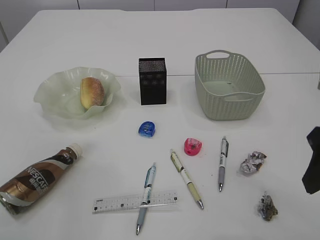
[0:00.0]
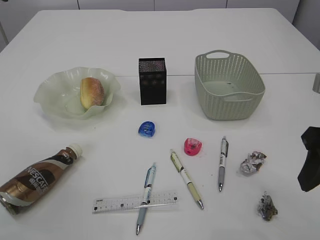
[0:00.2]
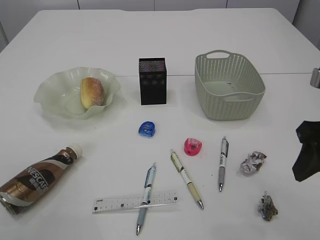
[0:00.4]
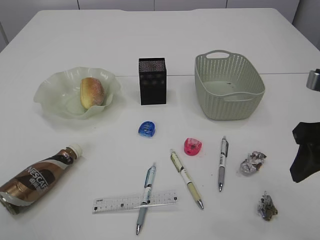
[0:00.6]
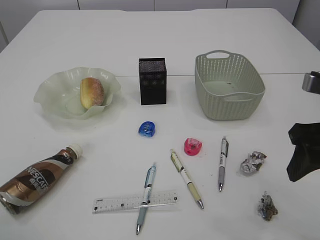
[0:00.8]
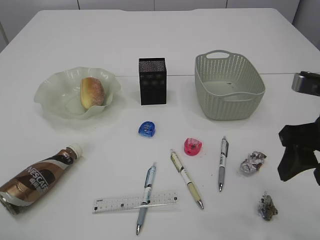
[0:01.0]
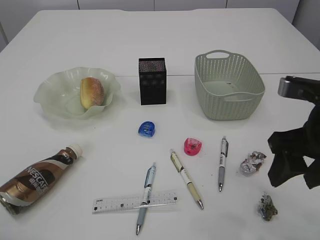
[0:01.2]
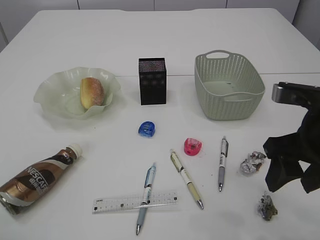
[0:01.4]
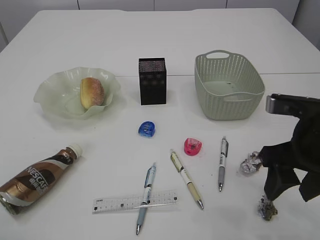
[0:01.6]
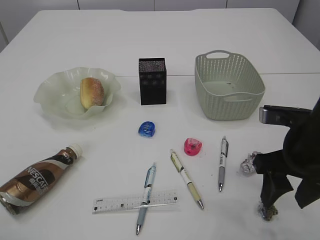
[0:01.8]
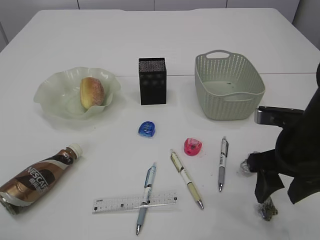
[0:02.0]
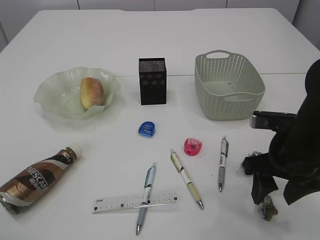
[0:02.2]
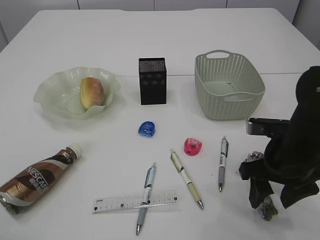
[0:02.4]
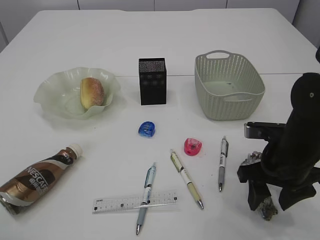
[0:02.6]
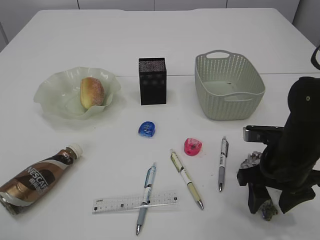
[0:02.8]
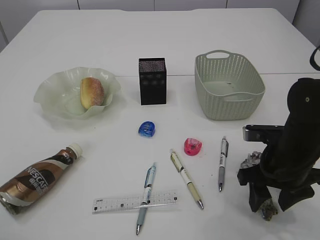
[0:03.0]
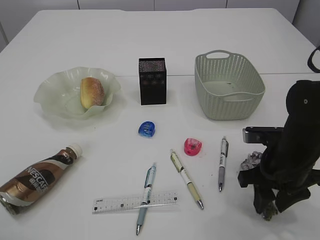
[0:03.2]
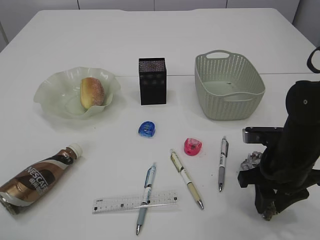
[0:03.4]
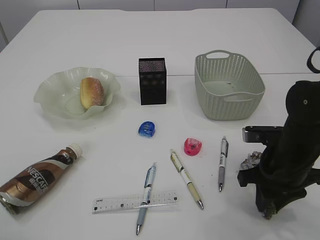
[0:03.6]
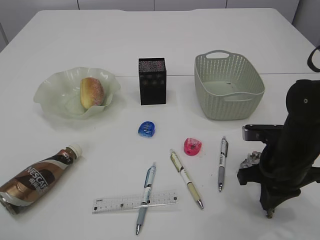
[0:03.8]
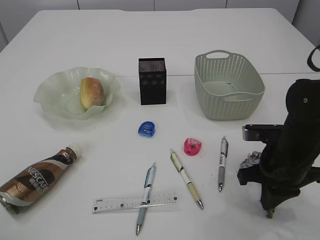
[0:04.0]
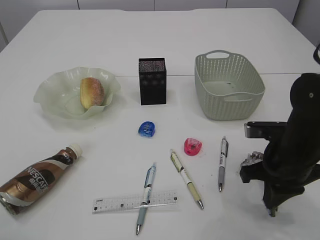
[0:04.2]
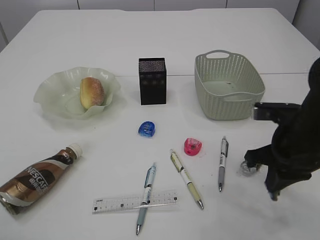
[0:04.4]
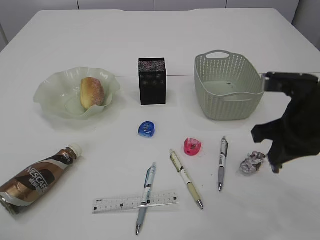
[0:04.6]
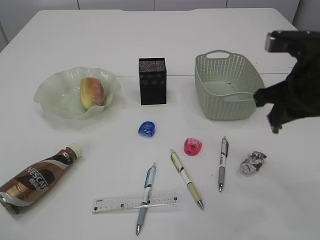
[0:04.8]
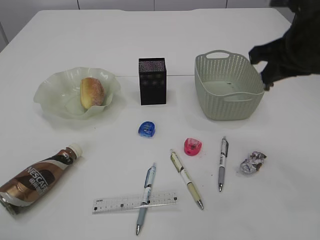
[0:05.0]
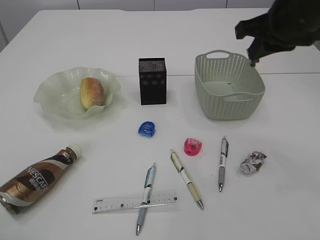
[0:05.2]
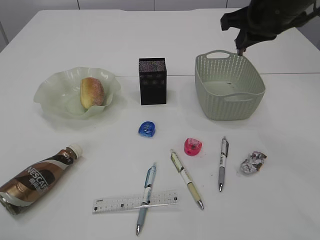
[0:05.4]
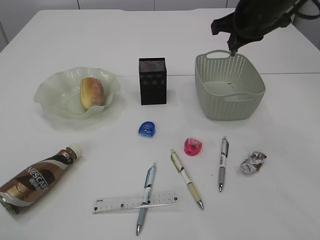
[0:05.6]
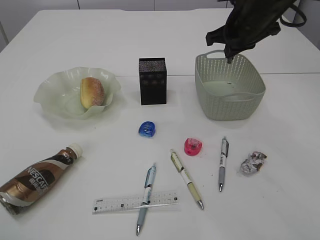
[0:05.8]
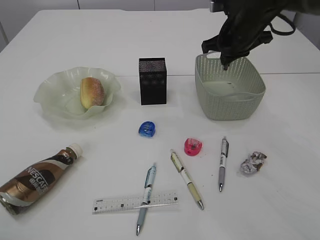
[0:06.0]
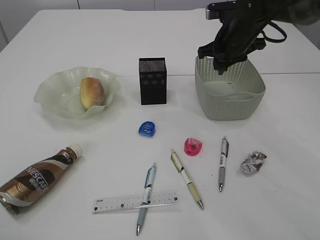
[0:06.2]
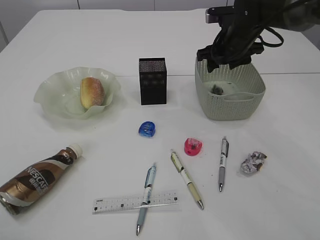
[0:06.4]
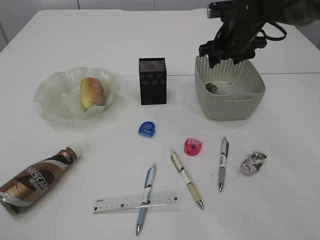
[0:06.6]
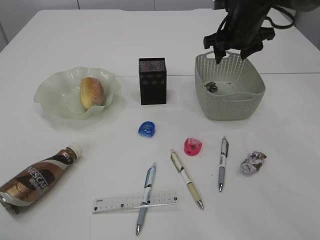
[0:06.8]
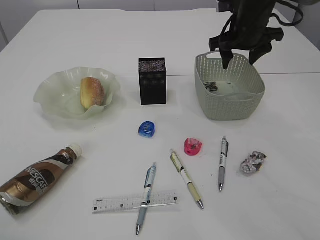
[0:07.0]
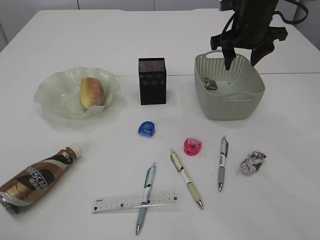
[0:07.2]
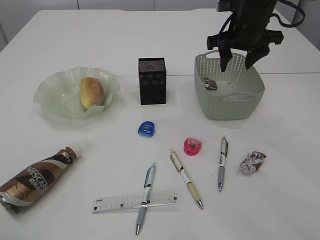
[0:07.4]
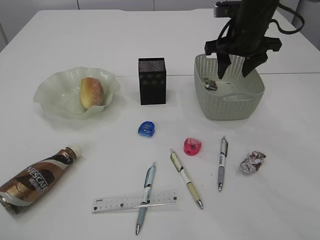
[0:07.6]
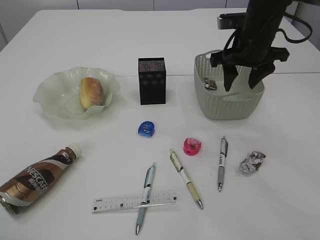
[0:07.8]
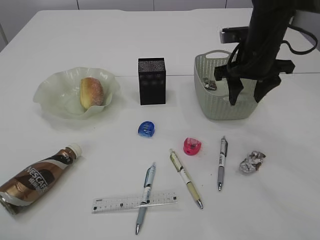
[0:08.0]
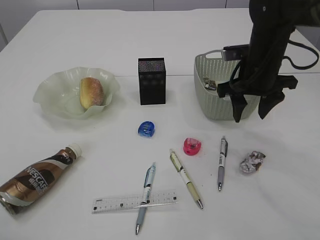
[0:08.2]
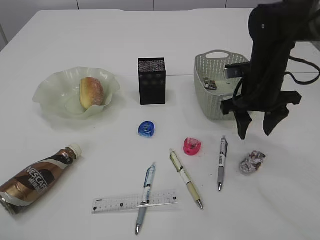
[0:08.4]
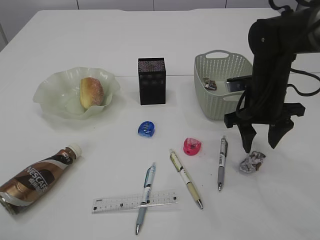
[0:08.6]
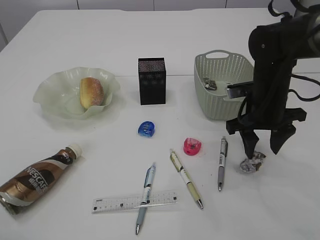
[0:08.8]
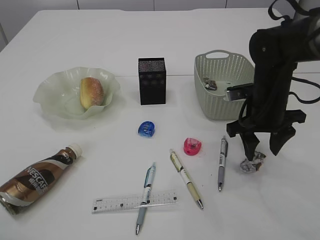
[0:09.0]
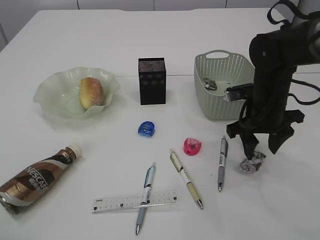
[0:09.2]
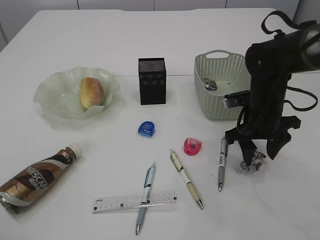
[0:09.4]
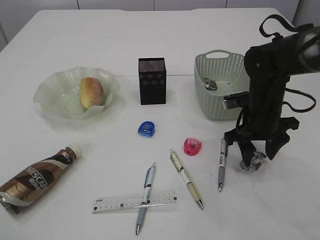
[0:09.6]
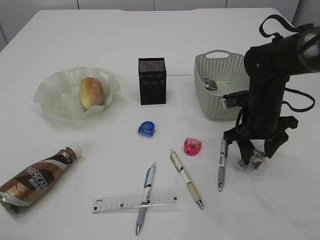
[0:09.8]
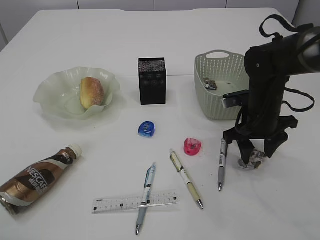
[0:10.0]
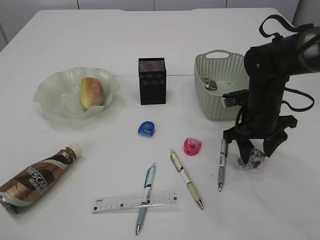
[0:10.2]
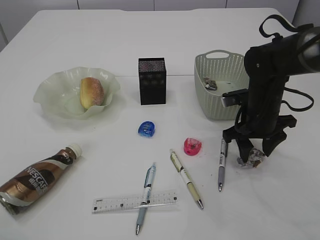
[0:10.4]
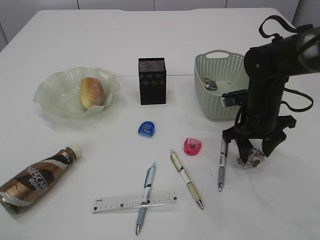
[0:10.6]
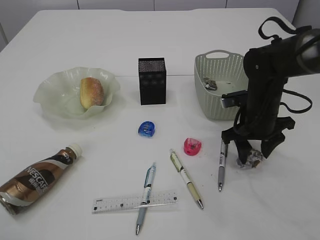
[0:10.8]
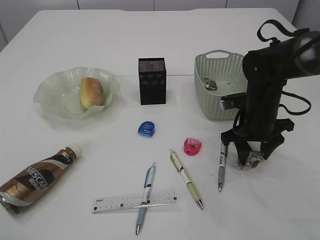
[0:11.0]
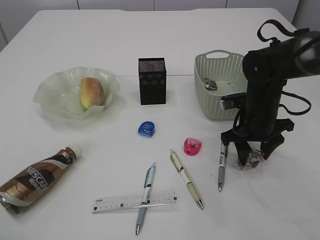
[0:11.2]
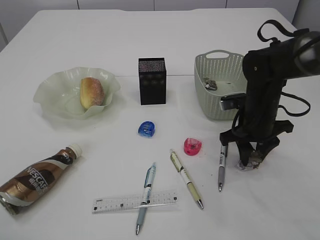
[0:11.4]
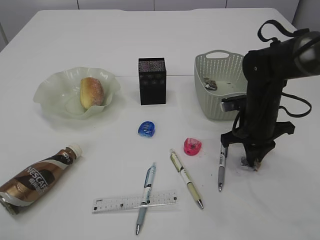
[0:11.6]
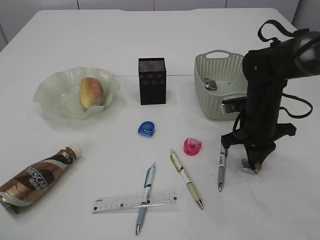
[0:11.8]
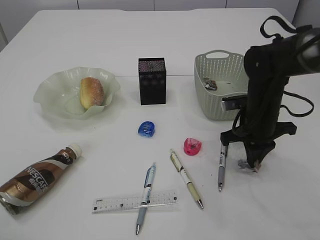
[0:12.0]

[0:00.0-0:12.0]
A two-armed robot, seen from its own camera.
Step, 0:00.0 to 0:04.2: Pick up the waste paper.
Step, 0:04.4 to 0:07.4: Place the waste paper in the basket.
0:00.0 to 0:01.6: The right gripper travels downward by roughly 5 cm.
0:01.6 to 0:03.0: The right gripper shifts roughly 10 cm downward.
0:03.0 to 0:04.4: The right gripper closes its fingers.
0:04.4 to 0:06.0: The right gripper shifts about 20 cm forward and upward.
0:06.0 to 0:07.6: The right gripper opens its fingers.
0:07.6 to 0:09.0: The right gripper shifts roughly 15 cm downward and backward.
0:09.0 to 0:10.4: There are only small adjustments of the grippers.
0:10.4 to 0:12.0: The right gripper closes.

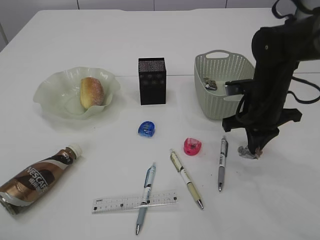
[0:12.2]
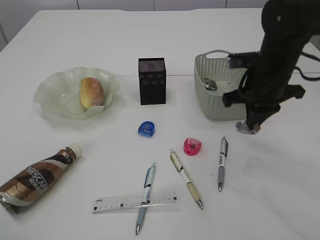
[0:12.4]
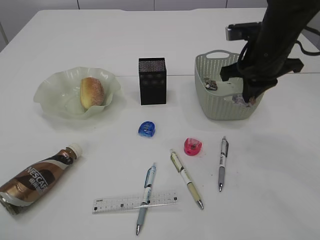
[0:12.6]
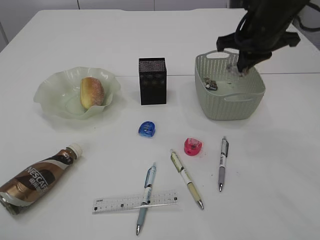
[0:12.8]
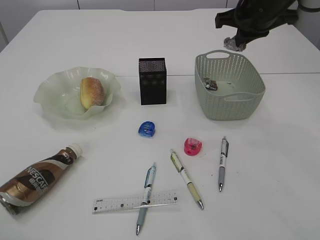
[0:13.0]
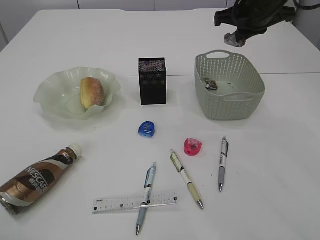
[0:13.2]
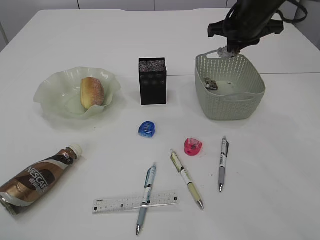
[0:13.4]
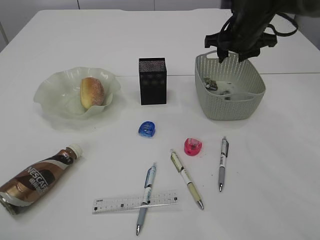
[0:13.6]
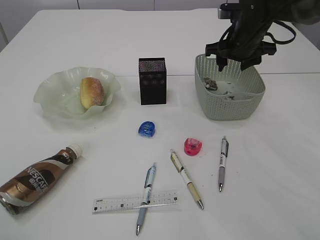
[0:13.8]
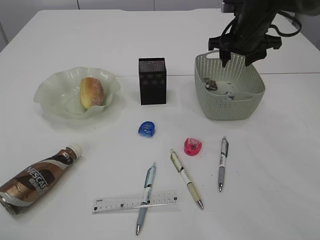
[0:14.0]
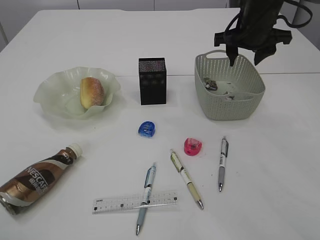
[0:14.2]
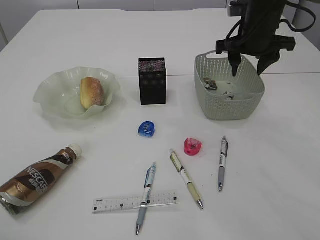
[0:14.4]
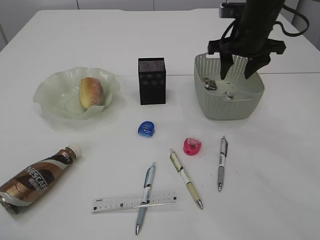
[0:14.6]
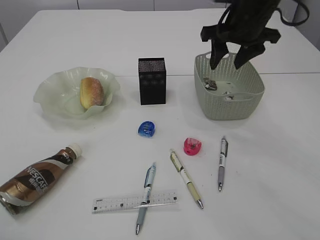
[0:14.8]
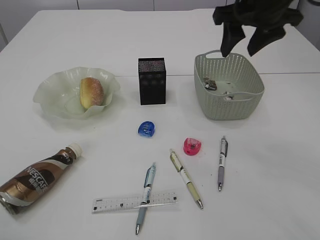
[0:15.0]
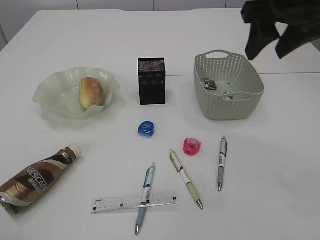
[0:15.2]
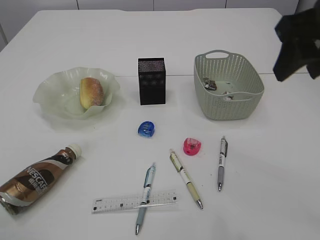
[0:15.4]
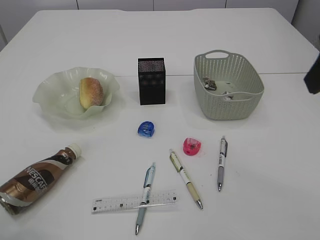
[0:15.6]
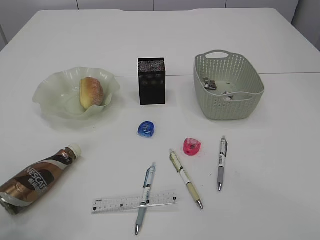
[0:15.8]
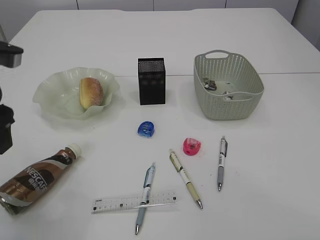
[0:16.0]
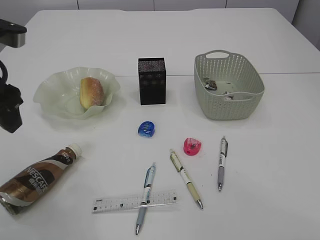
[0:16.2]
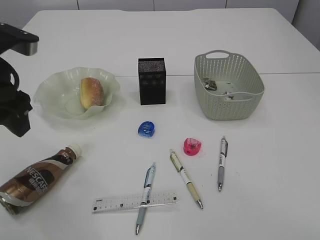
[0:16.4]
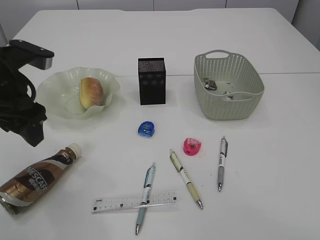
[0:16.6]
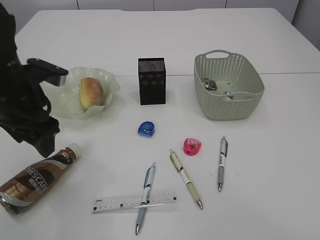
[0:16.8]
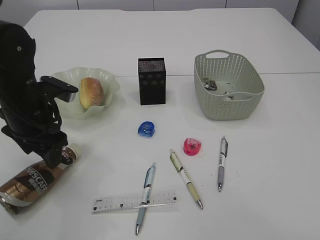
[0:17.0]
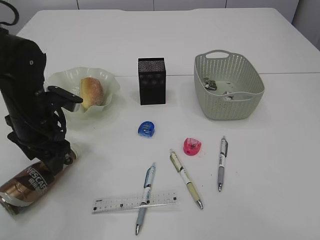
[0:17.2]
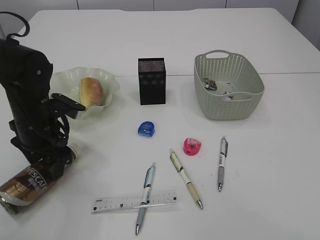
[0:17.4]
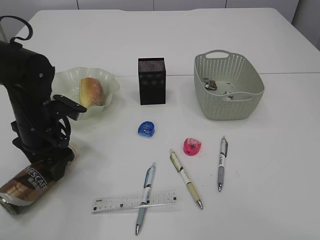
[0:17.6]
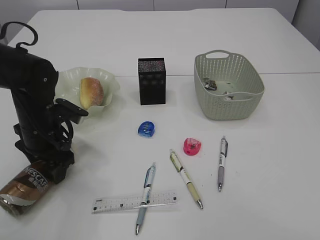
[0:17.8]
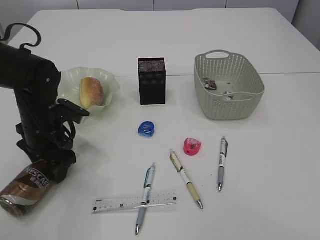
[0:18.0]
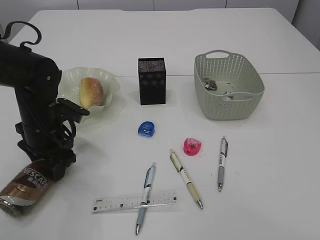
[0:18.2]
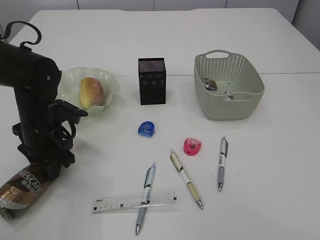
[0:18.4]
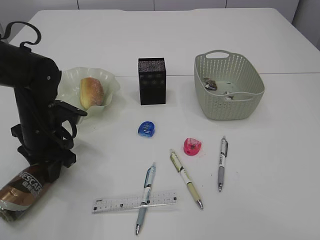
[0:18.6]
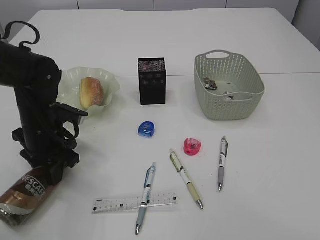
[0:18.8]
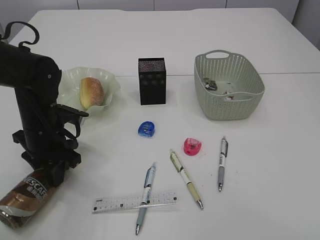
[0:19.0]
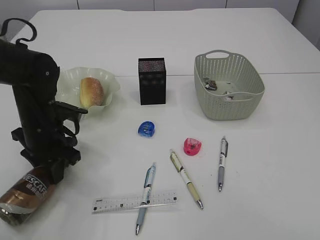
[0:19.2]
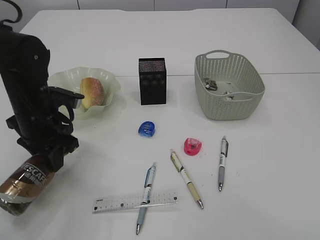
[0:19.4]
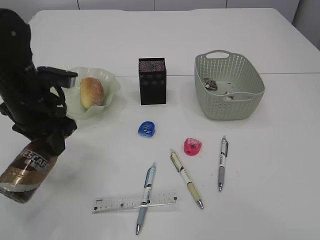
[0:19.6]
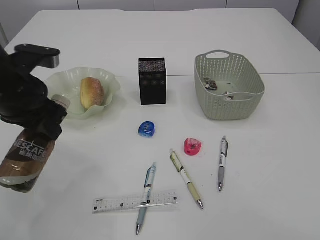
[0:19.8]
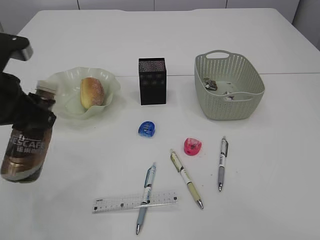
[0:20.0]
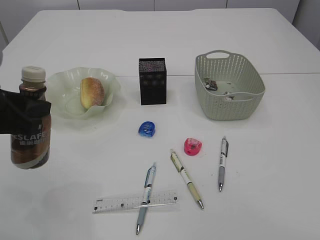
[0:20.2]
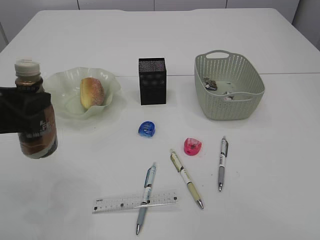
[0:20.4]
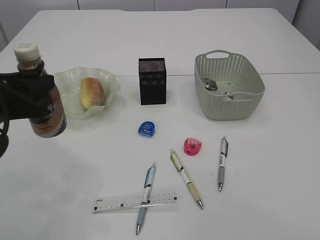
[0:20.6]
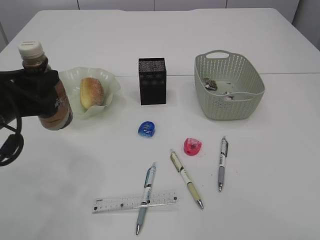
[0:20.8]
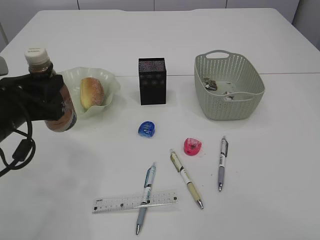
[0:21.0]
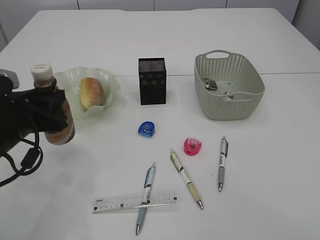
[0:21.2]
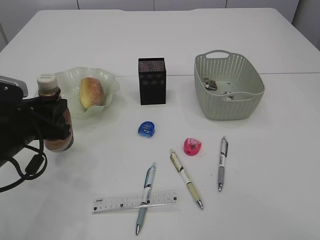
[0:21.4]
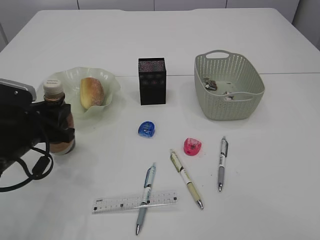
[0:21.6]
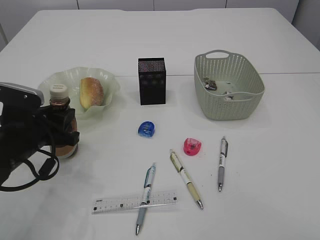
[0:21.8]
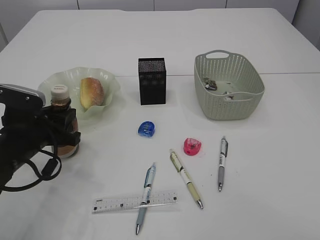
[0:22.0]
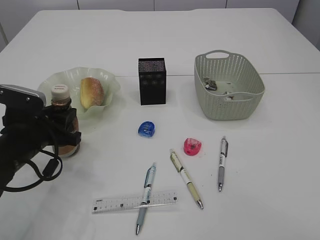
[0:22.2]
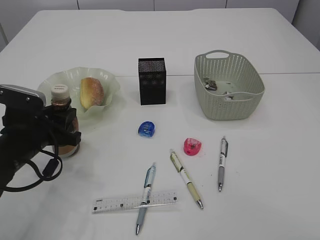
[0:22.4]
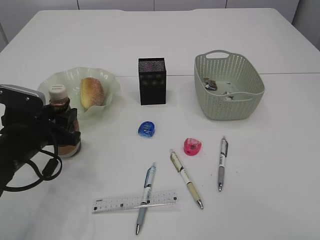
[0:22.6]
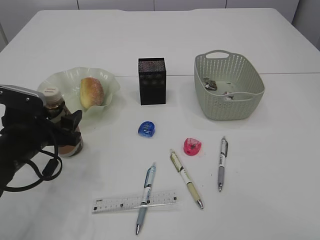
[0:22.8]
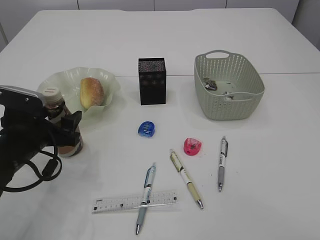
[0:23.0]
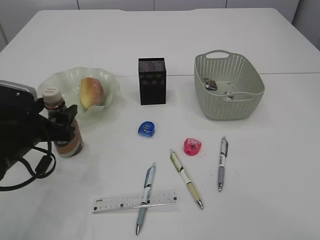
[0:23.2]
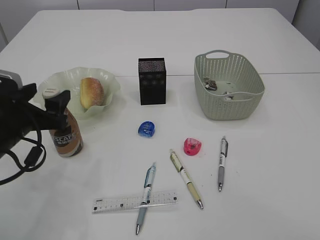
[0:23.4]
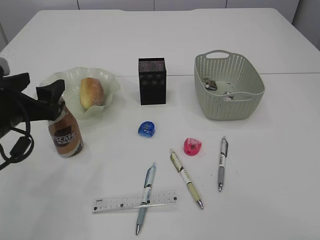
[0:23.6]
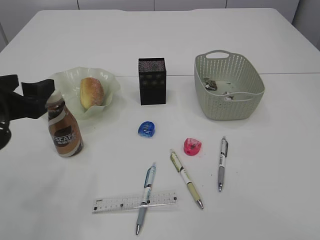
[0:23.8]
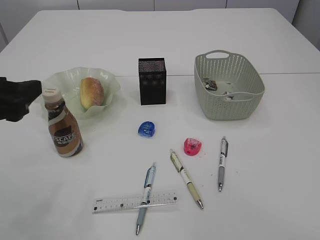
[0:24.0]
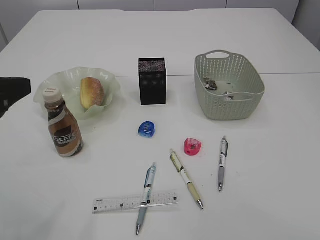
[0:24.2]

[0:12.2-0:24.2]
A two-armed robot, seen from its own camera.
Step, 0:12.4 to 0:14.2: Place the waste paper in the basket.
Step, 0:14.4 to 0:19.6: Pick up the bottle with the left arm.
Step, 0:19.8 to 0:24.0: Place the bottle.
0:12.2 to 0:13.8: The right gripper heads forward and upward, covering roughly 15 cm, and opens.
0:13.8 to 0:15.2: The right gripper goes about 20 cm backward and upward.
0:15.2 to 0:16.6: The left gripper goes approximately 20 cm forward, downward and to the right, while the right gripper is displaced backward by approximately 25 cm.
0:16.6 to 0:18.2: The left gripper heads downward, covering roughly 15 cm.
0:18.2 to 0:19.8: The left gripper shifts approximately 10 cm upward, and closes.
0:19.8 to 0:21.2: The left gripper heads downward, covering some 5 cm.
0:21.2 to 0:22.6: The left gripper heads downward, covering some 5 cm.
0:22.6 to 0:24.2: The left gripper goes roughly 20 cm upward and backward.
